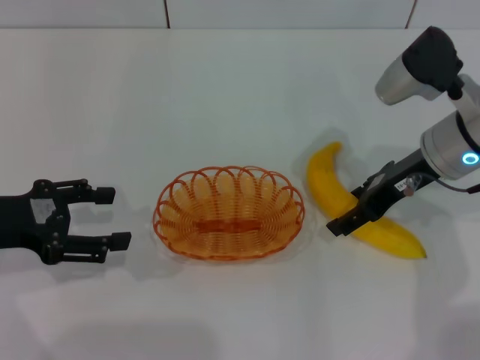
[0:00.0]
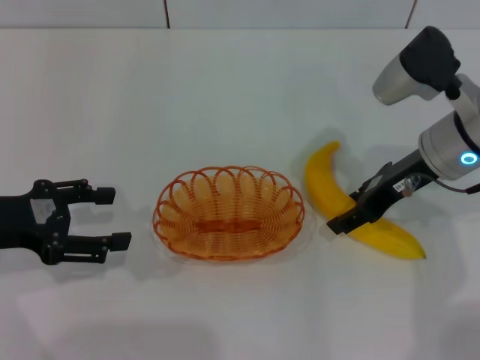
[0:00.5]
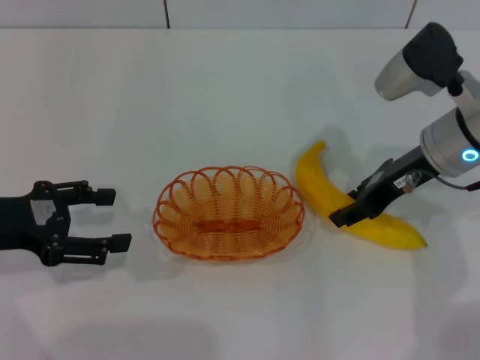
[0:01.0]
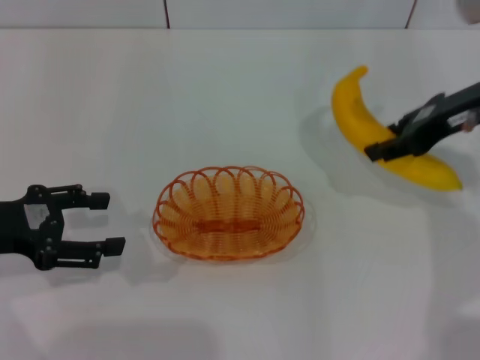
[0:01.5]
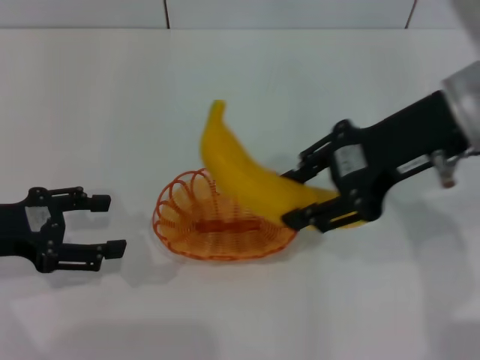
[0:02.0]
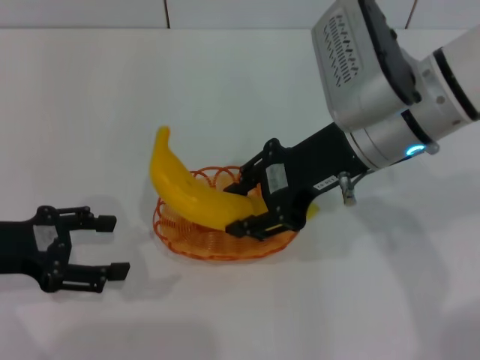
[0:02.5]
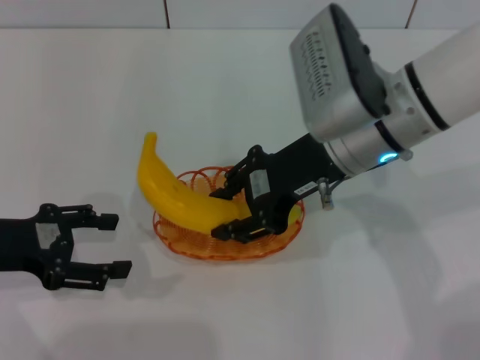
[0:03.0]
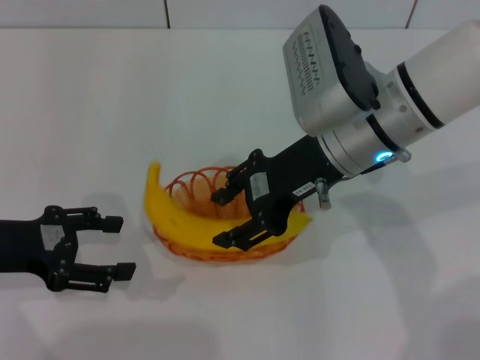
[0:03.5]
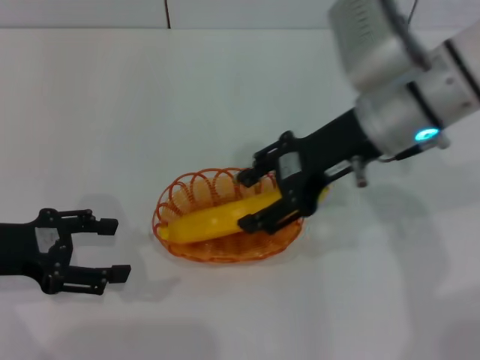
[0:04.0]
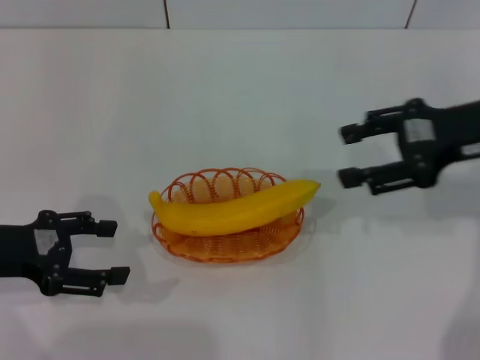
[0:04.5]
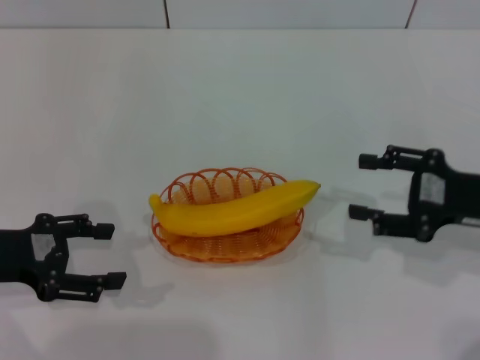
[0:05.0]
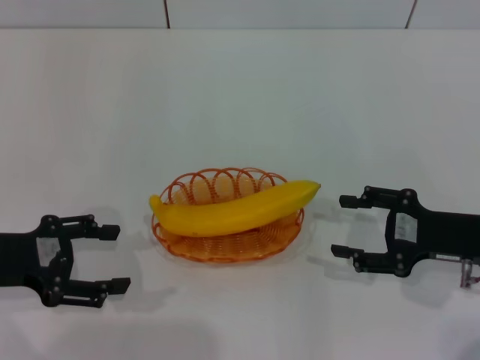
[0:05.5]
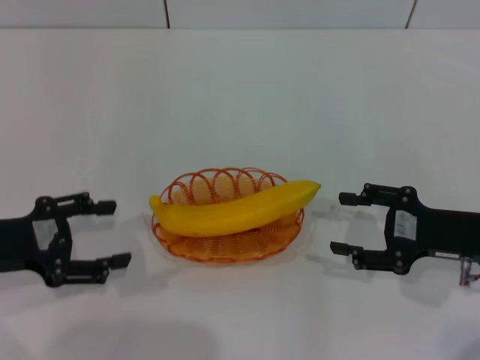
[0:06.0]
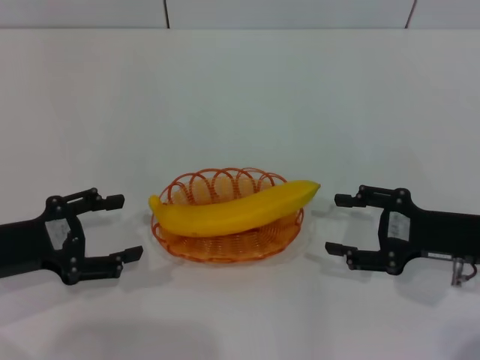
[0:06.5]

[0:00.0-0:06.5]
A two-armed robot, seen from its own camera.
Step, 0:02.0 to 0:04.0: Place the banana into the basket with the right gripper.
0:00.0 to 0:02.0: The right gripper is displaced upward by roughly 10 cm, and closes.
0:02.0 to 0:04.5: The right gripper heads to the right, covering about 10 cm, and opens.
0:04.5 to 0:06.5: The right gripper moves downward and backward, some 15 cm.
